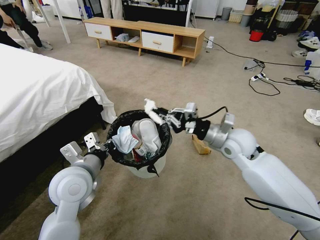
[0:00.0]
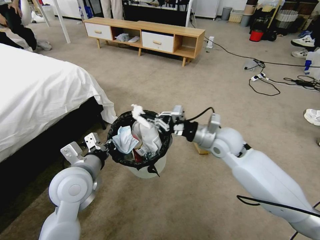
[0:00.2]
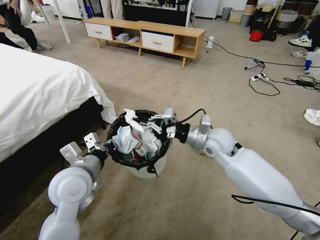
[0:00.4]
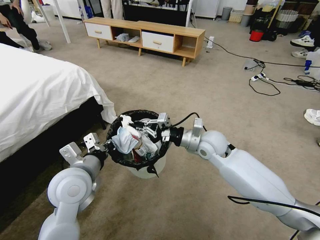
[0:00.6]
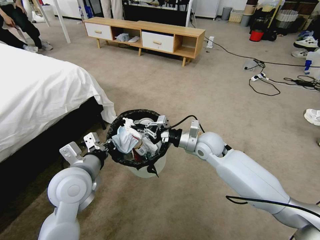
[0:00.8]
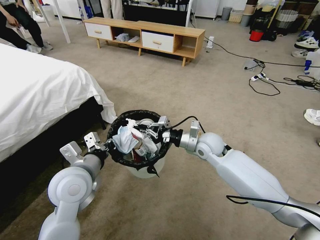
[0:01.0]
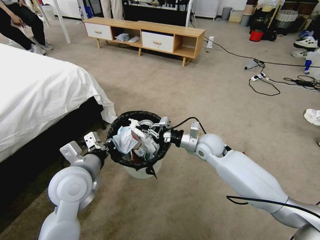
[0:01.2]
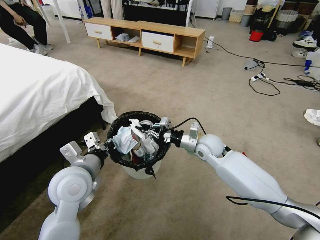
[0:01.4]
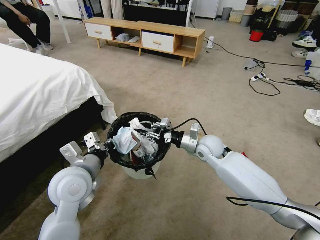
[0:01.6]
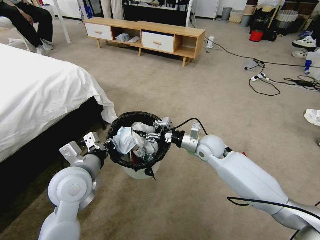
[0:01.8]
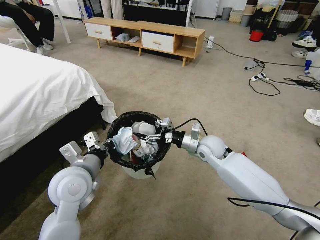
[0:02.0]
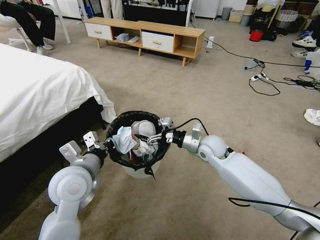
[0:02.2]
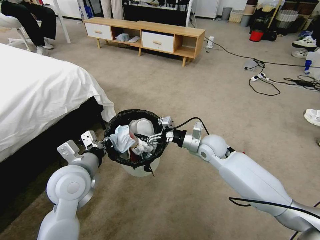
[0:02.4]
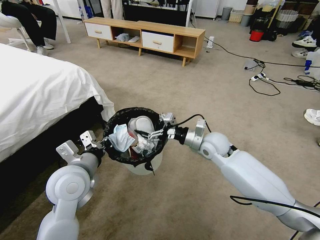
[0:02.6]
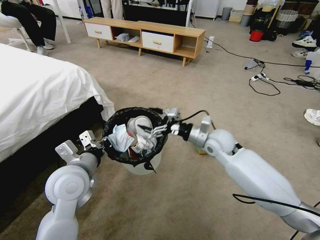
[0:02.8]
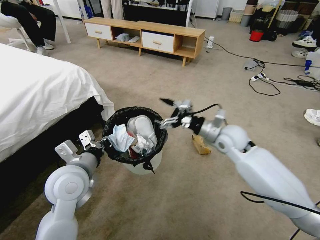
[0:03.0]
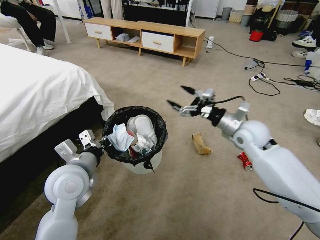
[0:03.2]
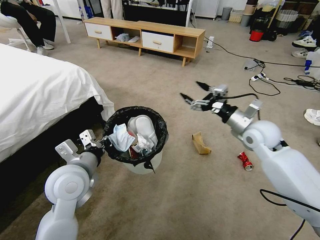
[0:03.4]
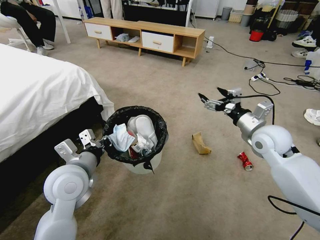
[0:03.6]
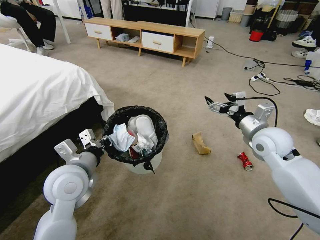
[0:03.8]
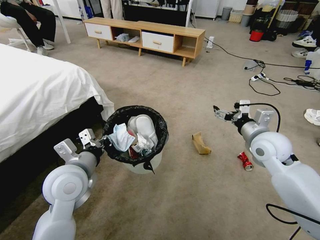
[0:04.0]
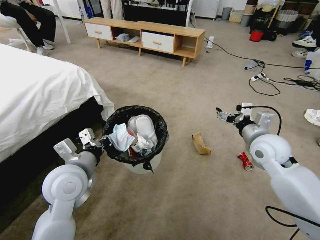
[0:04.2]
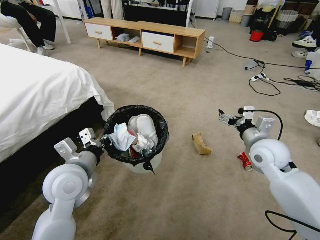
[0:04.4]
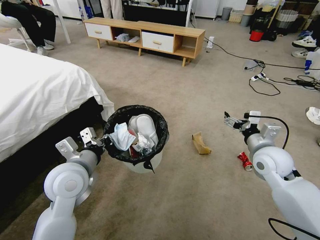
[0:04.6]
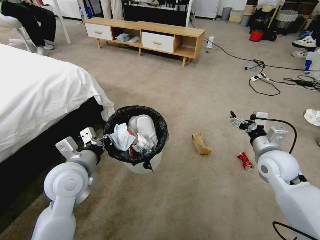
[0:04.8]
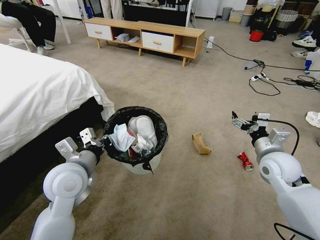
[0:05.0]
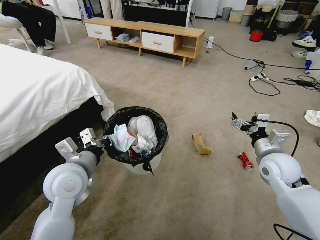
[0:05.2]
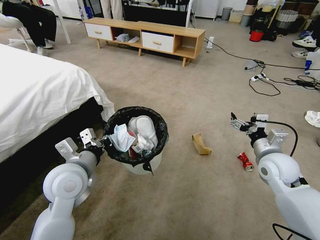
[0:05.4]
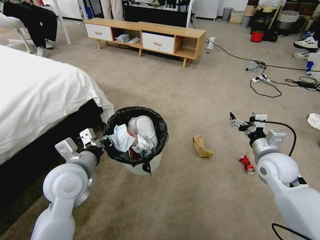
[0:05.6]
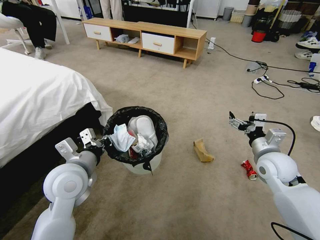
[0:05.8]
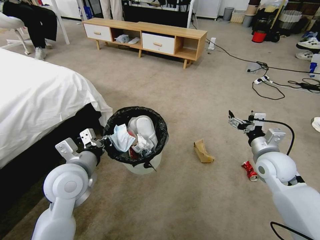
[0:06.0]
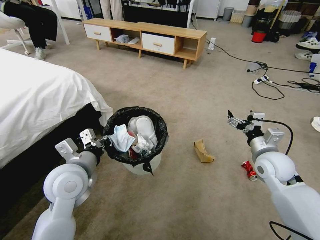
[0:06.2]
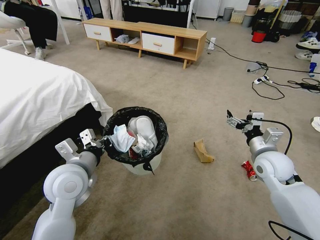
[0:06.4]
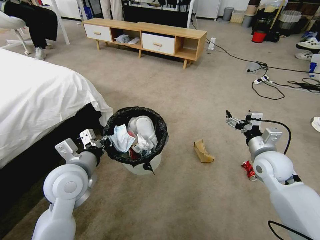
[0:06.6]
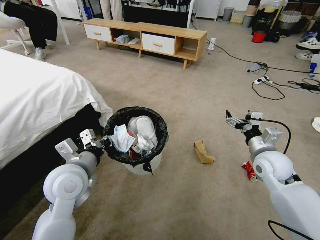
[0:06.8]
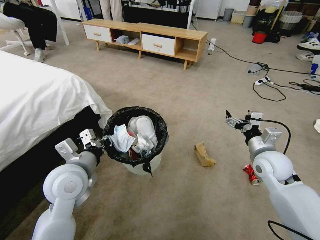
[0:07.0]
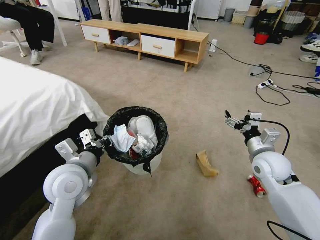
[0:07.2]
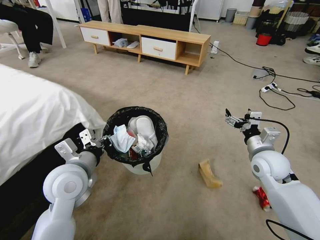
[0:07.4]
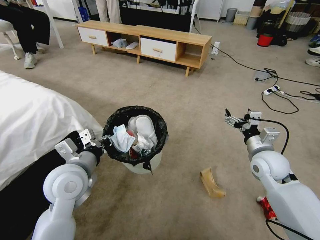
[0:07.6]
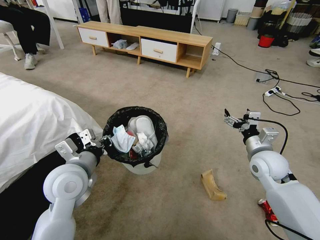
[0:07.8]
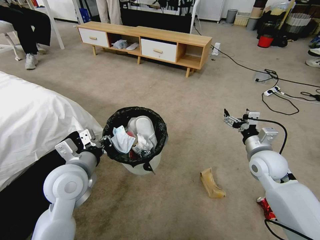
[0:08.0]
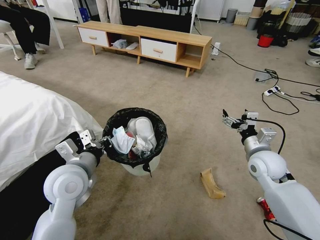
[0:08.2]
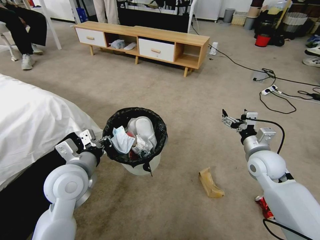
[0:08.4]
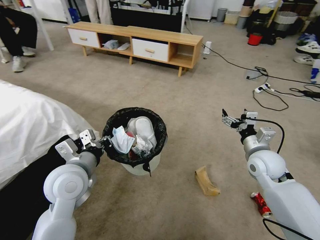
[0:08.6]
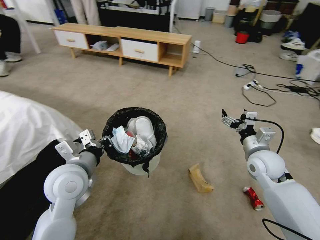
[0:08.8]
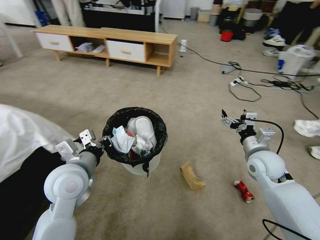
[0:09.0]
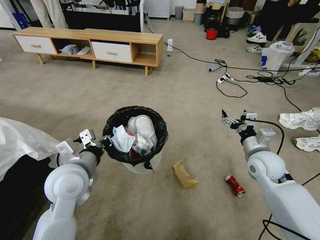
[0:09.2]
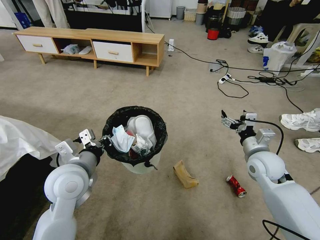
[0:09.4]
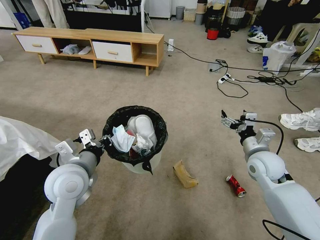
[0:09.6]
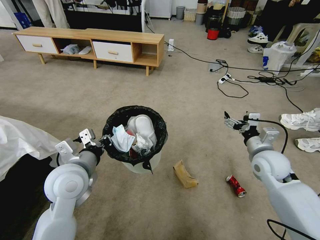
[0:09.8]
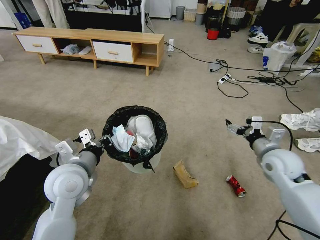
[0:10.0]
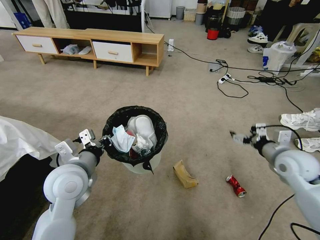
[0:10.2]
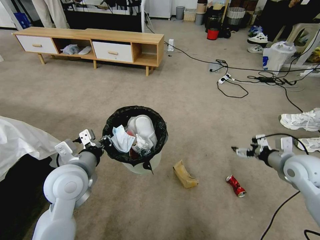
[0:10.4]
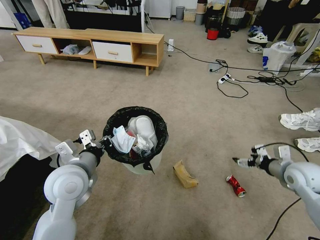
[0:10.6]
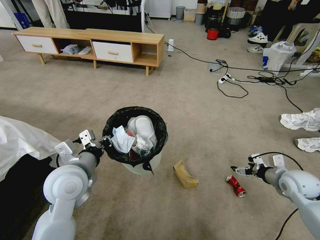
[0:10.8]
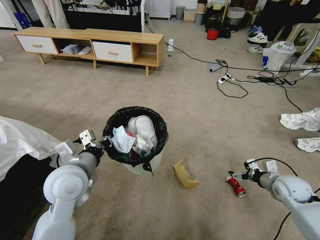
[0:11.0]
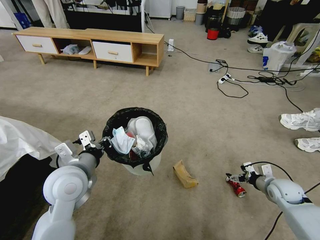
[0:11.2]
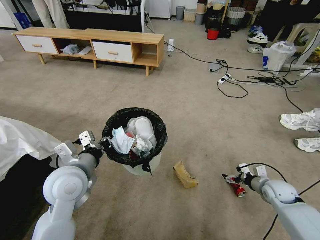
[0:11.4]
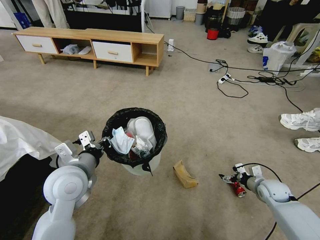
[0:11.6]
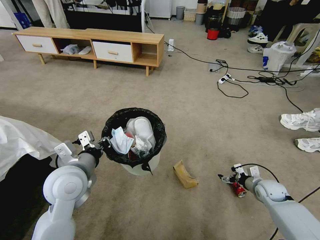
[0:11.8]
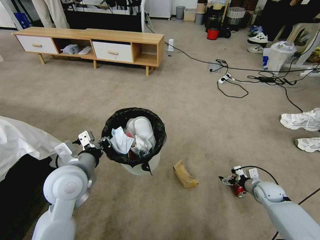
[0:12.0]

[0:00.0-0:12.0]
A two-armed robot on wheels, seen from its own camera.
Task of the whole recording: Pick up the trash bin and place the garbage on the floor into it.
0:00.0 to 0:01.6: The right gripper moves downward and to the left, approximately 10 cm, and opens.
0:01.6 to 0:03.0: The right gripper shifts about 10 cm upward and to the right, and opens its fingers.
0:03.0 to 0:04.4: The right gripper travels to the right and backward by approximately 10 cm.
0:04.4 to 0:06.0: The right gripper moves some 5 cm.
0:09.0 to 0:10.4: The right gripper goes about 10 cm to the right.
0:10.4 to 0:12.0: The right gripper goes some 20 cm downward.

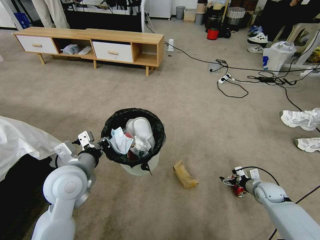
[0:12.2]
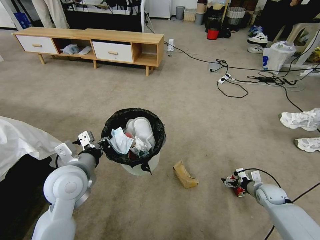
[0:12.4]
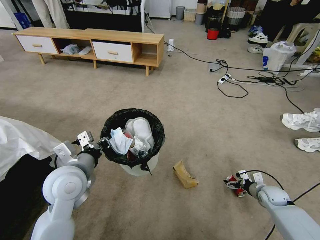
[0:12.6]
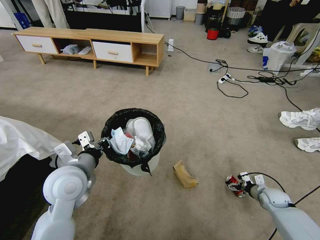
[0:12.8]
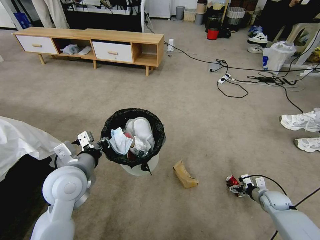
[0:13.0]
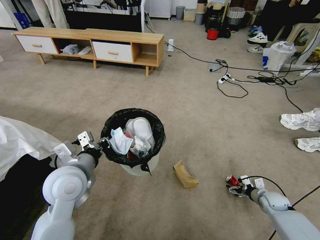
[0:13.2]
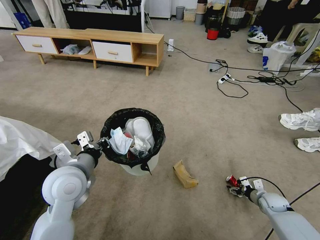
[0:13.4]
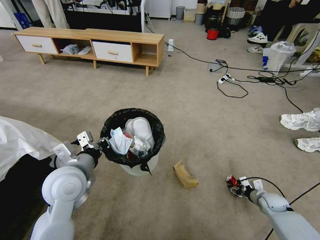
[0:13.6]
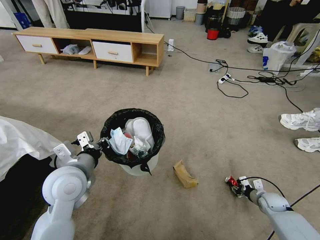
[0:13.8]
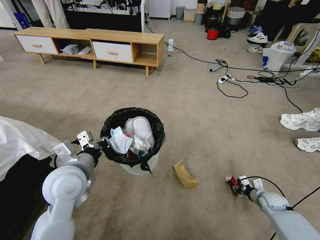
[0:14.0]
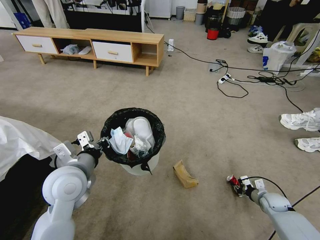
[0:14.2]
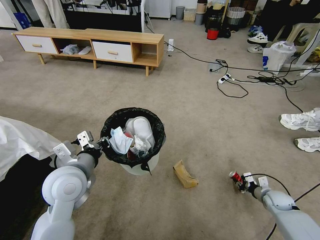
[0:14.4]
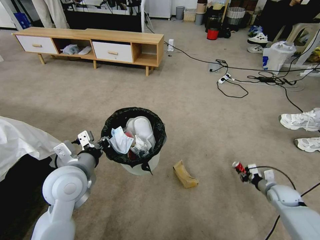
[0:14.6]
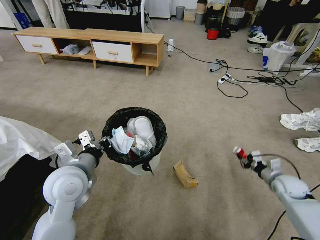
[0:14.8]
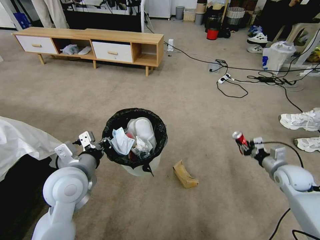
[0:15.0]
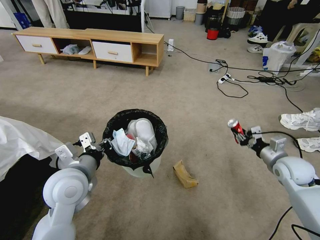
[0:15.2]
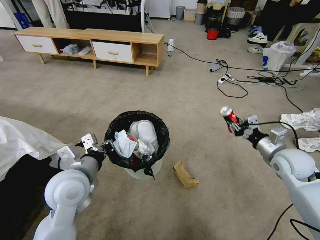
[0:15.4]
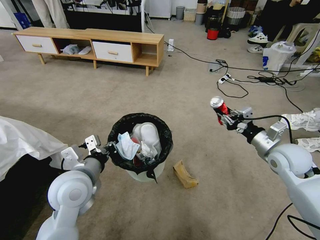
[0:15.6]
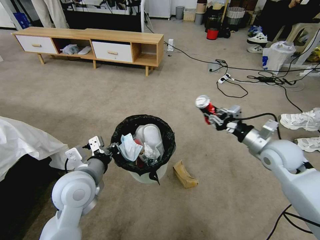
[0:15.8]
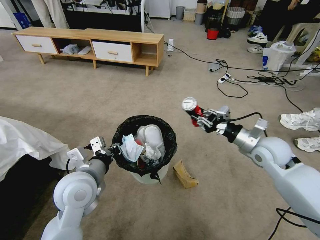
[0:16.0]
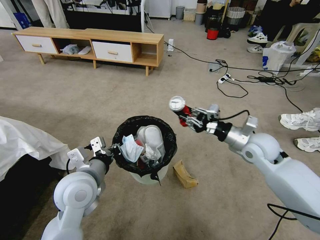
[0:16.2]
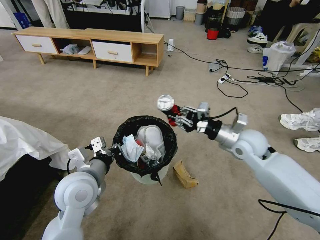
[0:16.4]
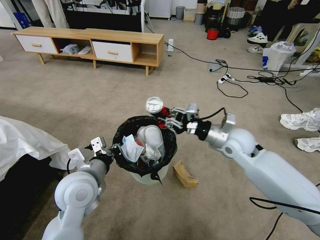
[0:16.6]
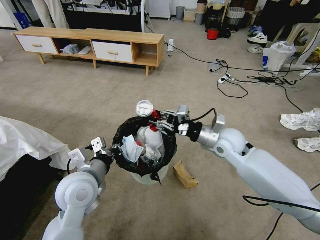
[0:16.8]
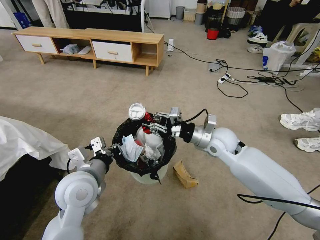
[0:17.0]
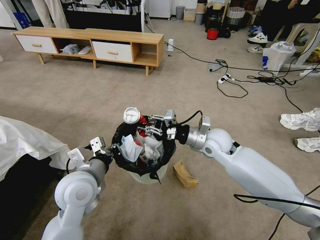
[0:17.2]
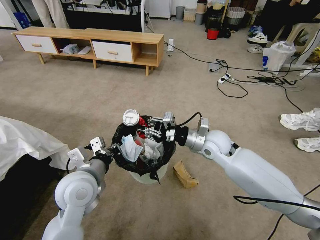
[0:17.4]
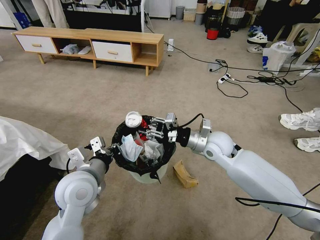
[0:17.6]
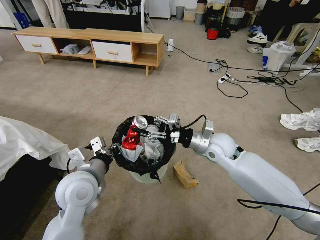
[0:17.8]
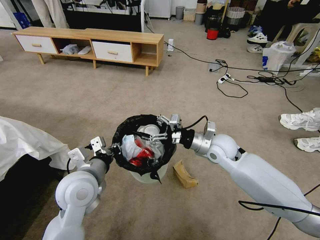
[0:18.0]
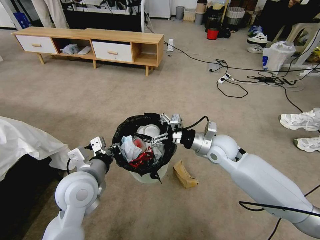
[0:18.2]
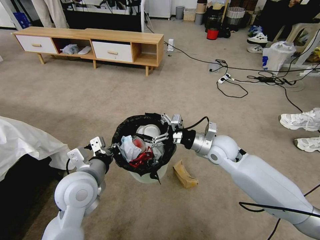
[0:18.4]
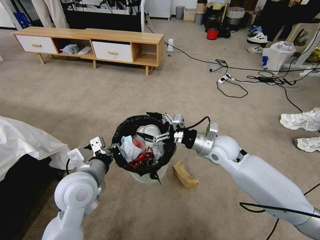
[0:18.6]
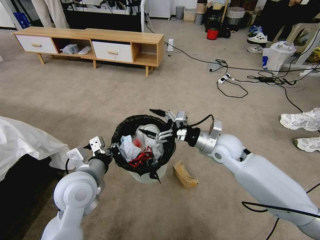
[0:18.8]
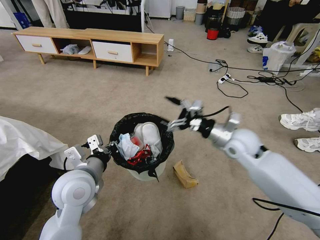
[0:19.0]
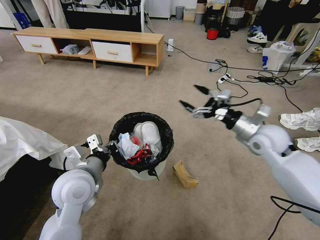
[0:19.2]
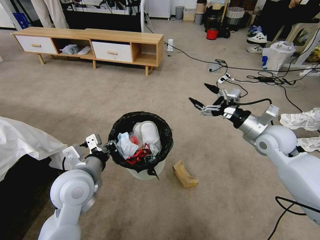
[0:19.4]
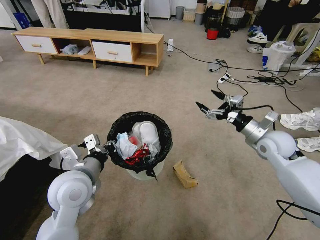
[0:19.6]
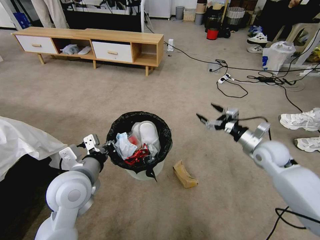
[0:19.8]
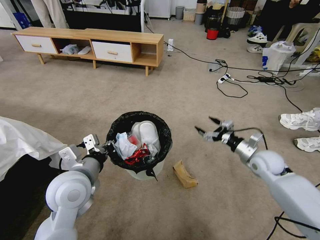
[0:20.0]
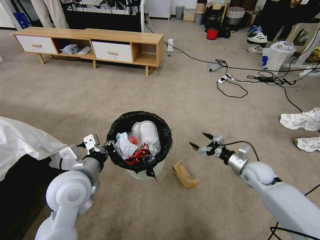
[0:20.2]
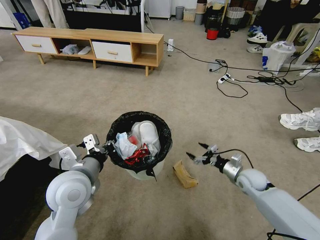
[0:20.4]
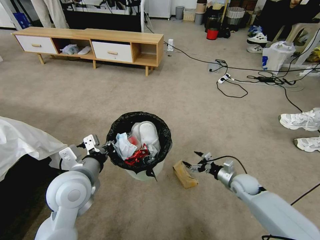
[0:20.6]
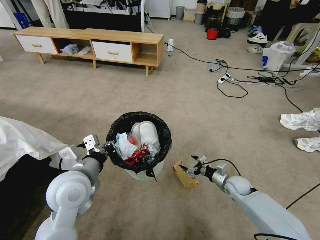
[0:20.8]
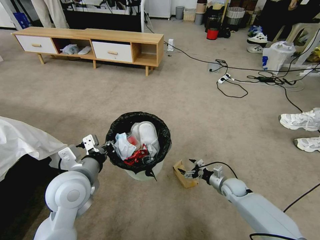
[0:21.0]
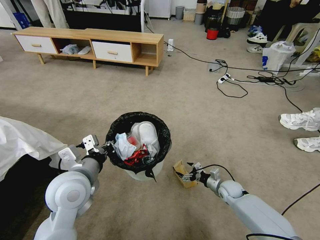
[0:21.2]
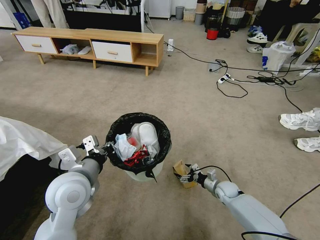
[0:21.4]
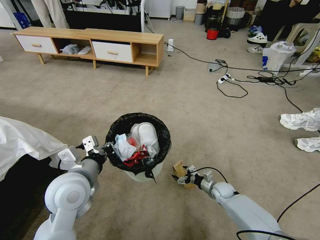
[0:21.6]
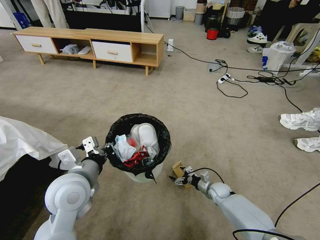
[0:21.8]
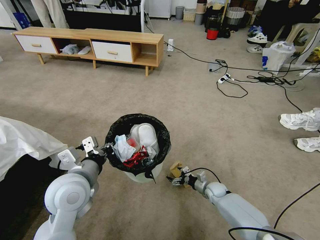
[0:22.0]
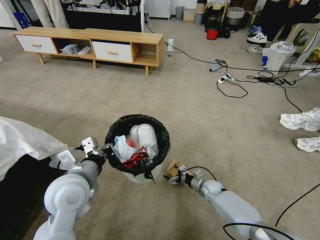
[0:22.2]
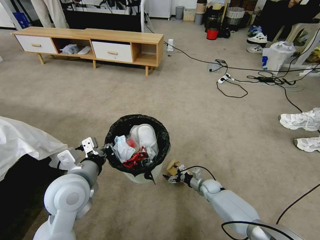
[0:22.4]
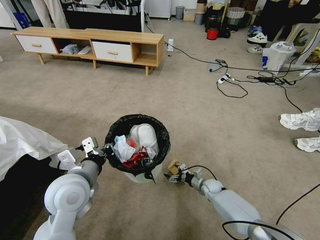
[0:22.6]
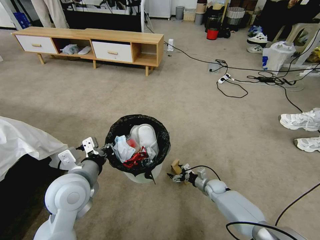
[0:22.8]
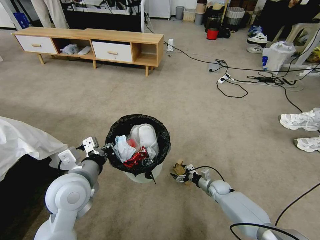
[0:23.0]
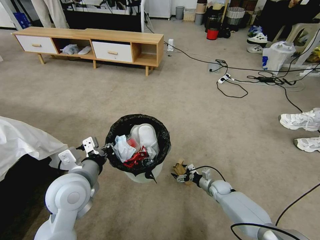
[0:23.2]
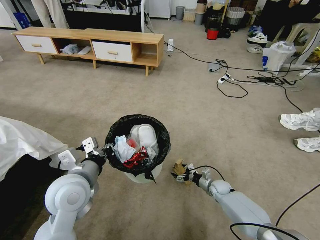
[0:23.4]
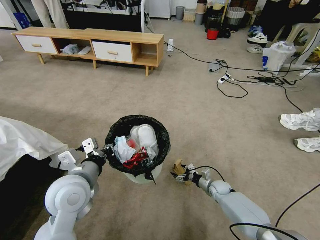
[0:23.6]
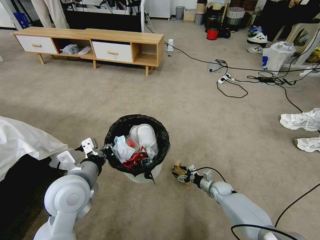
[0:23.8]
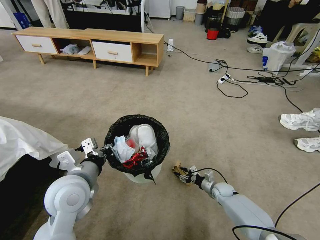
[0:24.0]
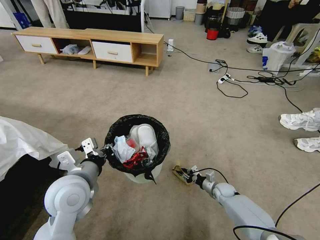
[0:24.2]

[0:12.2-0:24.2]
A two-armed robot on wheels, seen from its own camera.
Task of the whole recording: Pick up the trash bin and place the garbage on the floor into it.
0:12.2 to 0:13.8: The right gripper moves approximately 5 cm, and closes its fingers.
0:13.8 to 0:15.2: The right gripper shifts some 20 cm upward.
0:15.2 to 0:16.6: The right gripper goes approximately 20 cm to the left and upward.
0:16.6 to 0:18.2: The right gripper opens up.
0:18.2 to 0:19.8: The right gripper travels to the right by approximately 20 cm.
0:19.8 to 0:21.2: The right gripper moves downward, about 25 cm.
0:21.2 to 0:22.6: The right gripper moves to the left, some 5 cm.
0:22.6 to 0:24.2: The right gripper goes approximately 5 cm to the right, and closes up.
